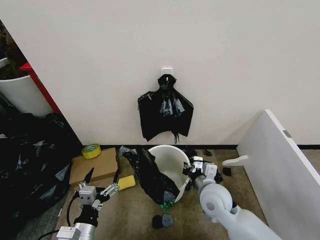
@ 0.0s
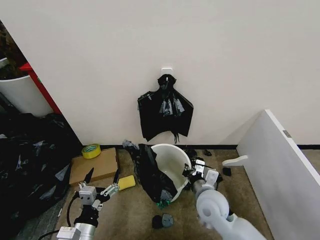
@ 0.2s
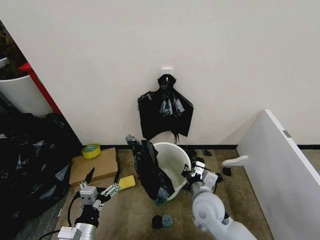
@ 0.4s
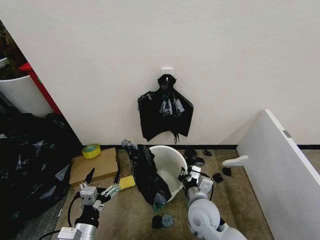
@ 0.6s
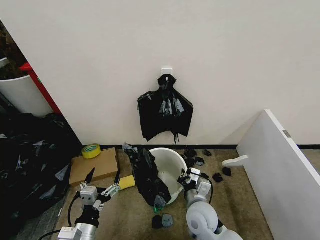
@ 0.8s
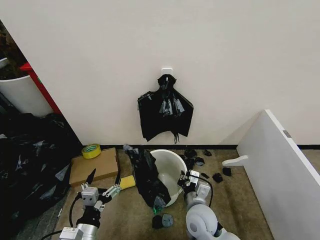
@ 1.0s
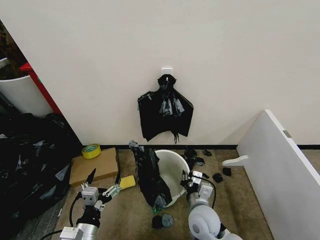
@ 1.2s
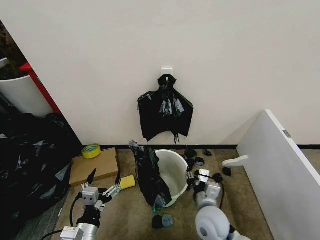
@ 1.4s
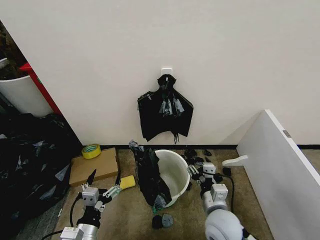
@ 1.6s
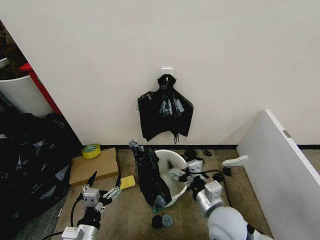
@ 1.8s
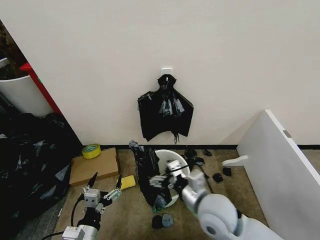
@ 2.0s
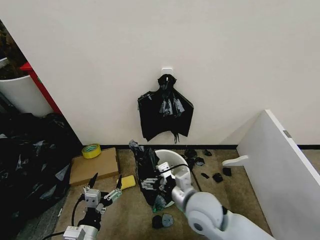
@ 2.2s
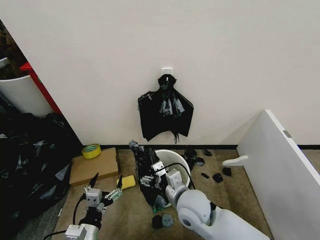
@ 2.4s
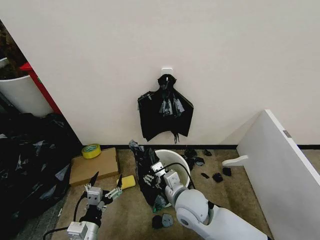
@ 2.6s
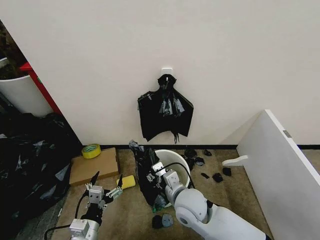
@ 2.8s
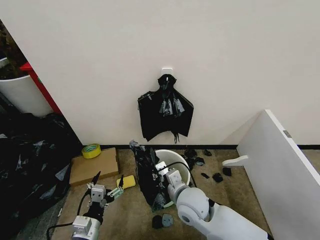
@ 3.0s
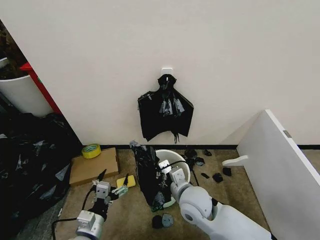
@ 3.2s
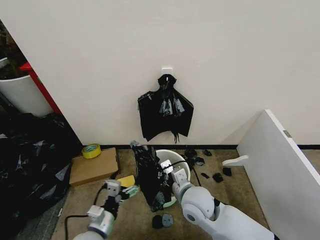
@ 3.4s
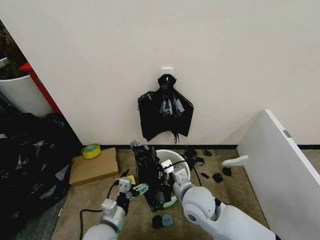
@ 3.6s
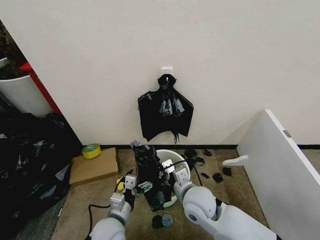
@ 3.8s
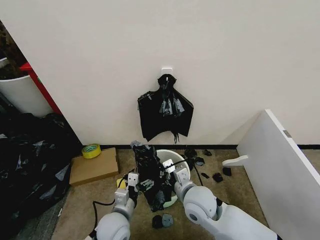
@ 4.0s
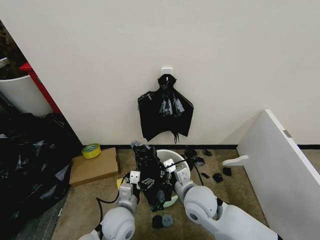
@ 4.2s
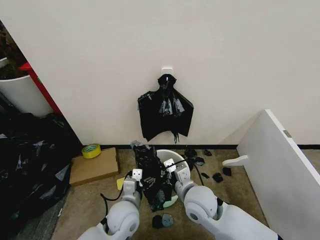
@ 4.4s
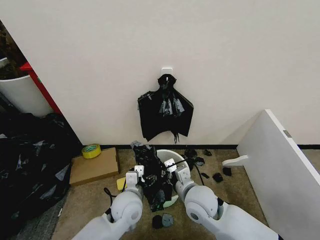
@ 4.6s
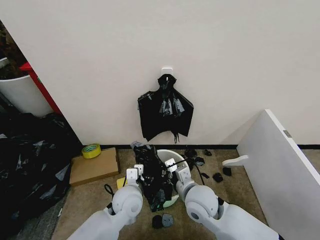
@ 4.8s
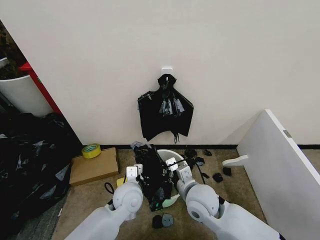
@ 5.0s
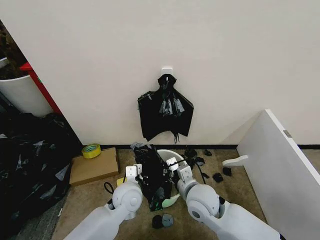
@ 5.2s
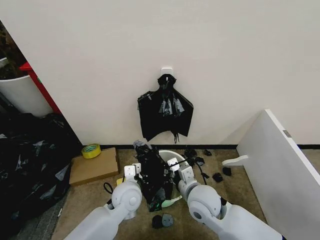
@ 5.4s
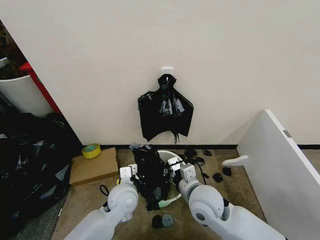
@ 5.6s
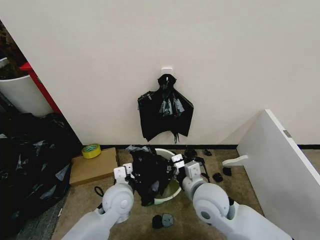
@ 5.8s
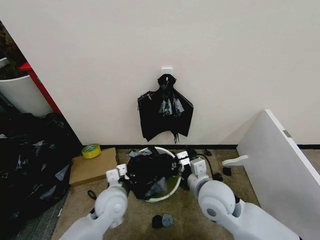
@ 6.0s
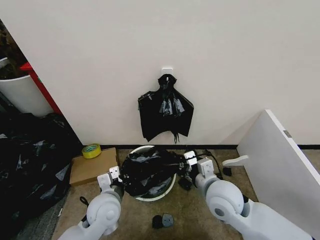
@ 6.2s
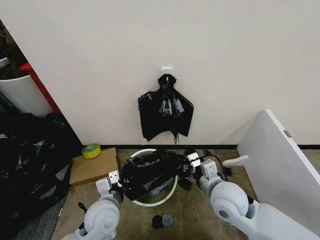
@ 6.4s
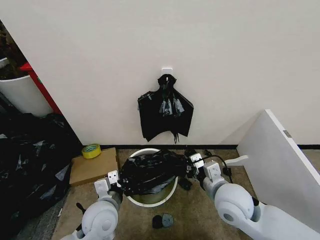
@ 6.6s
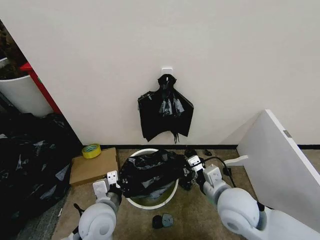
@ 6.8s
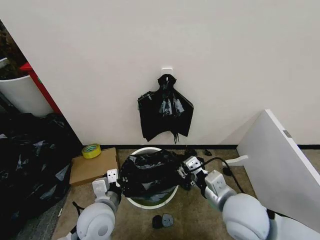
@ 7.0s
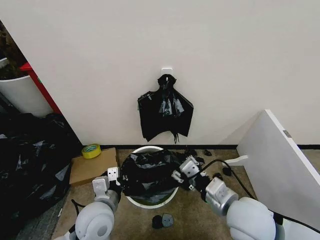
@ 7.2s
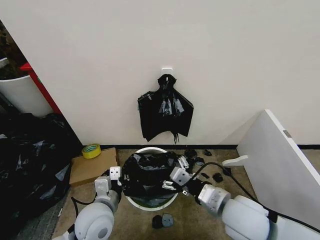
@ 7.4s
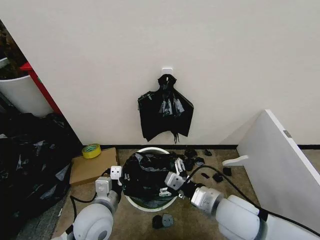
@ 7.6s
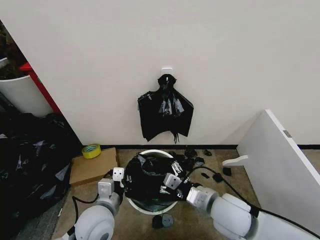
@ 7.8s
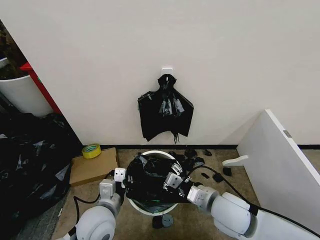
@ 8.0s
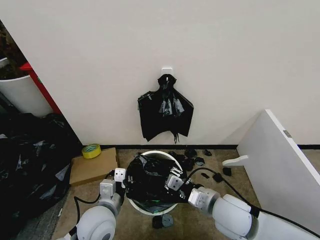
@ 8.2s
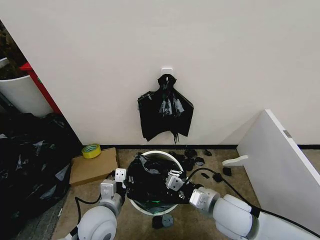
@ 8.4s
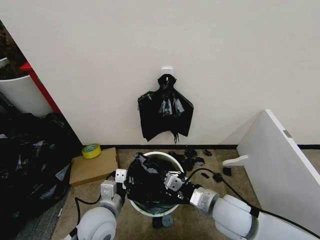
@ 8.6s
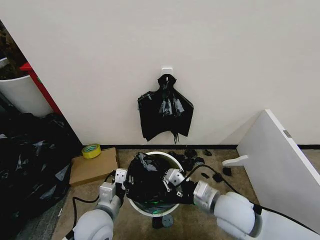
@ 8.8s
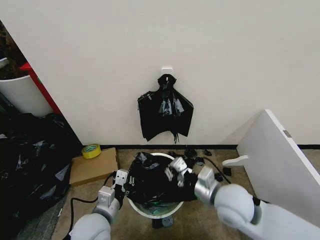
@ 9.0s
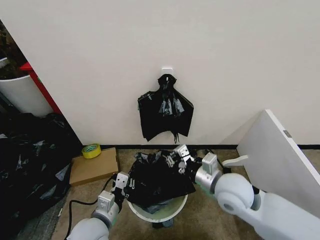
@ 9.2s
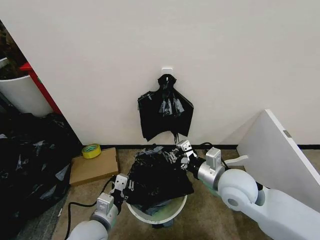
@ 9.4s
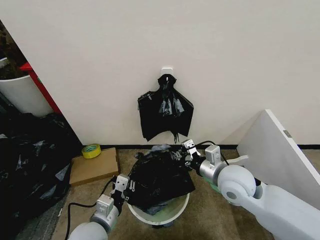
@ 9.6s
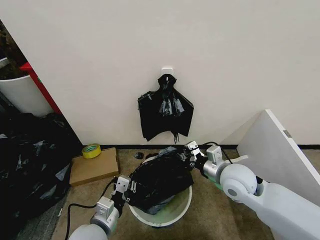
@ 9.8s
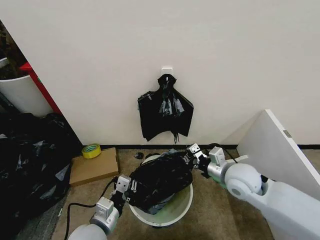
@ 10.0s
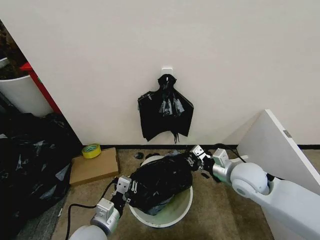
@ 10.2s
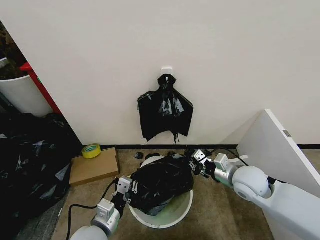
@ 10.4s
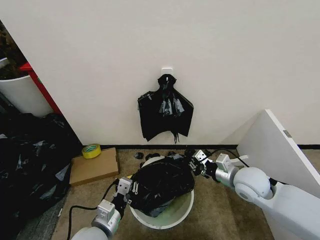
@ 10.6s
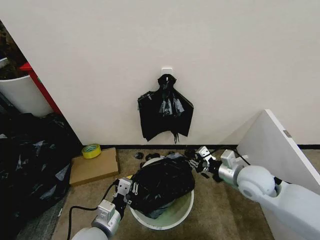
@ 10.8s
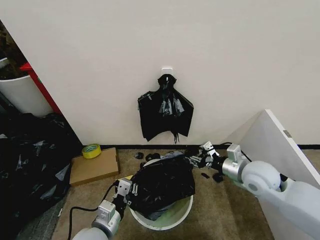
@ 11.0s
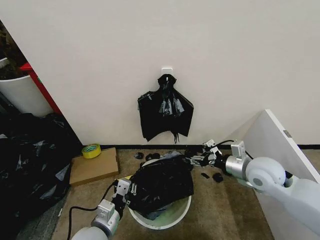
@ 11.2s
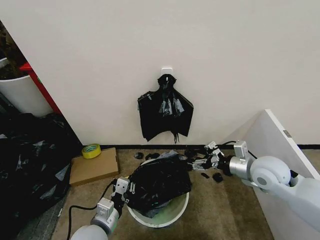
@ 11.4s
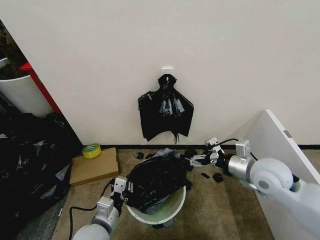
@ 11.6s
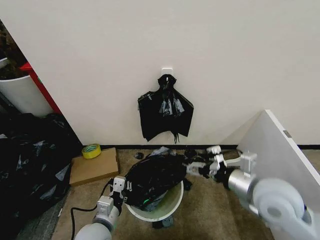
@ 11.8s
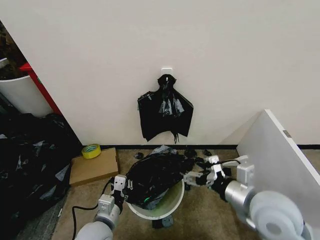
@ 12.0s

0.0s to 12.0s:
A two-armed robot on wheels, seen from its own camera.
Task of the whole recording: Place the garbage bag over the trash bin.
0.0s to 1.6s: The right gripper travels backward by some 10 cm, and opens up.
1.6s to 3.0s: The right gripper is displaced to the left and forward by roughly 10 cm, and closes.
3.0s to 4.4s: The left gripper is displaced to the right and forward by about 15 cm.
4.4s to 6.0s: The left gripper changes place by some 5 cm, and closes up. The right gripper ends up roughly 5 cm from where it was.
6.0s to 7.6s: The right gripper changes place by about 5 cm, and opens up. Meanwhile the left gripper heads backward, covering about 5 cm.
7.6s to 9.0s: The right gripper closes up.
9.0s to 10.4s: The right gripper goes roughly 10 cm to the right and forward.
10.4s to 12.0s: The right gripper shifts some 15 cm backward and upward, and opens up.

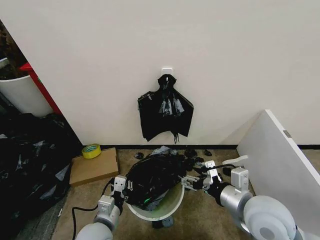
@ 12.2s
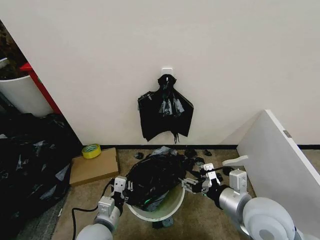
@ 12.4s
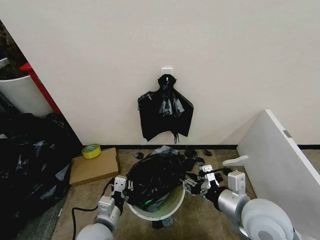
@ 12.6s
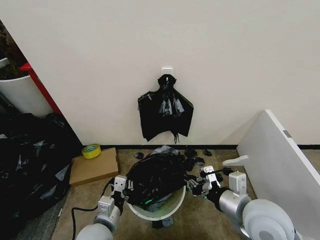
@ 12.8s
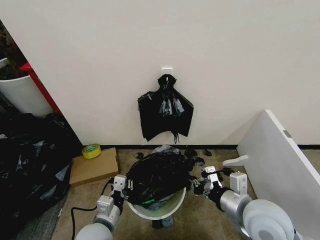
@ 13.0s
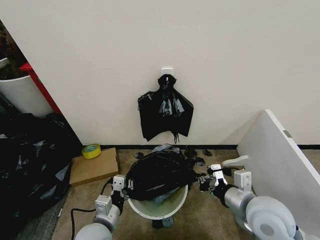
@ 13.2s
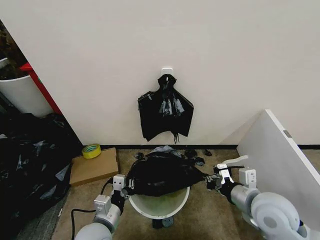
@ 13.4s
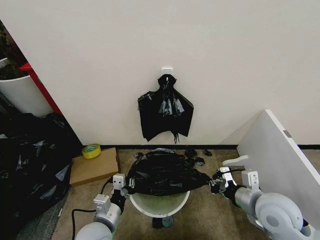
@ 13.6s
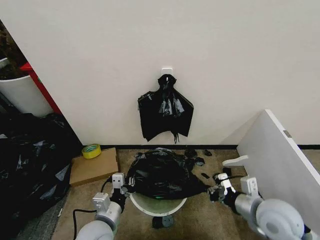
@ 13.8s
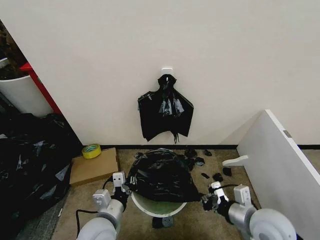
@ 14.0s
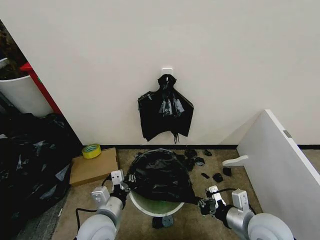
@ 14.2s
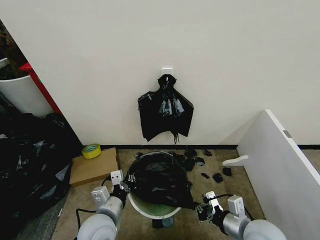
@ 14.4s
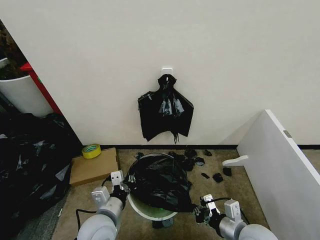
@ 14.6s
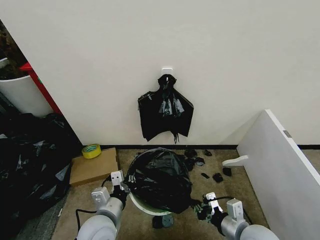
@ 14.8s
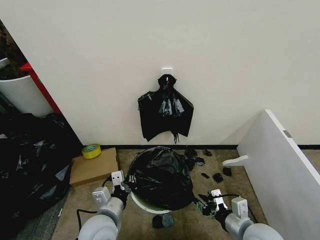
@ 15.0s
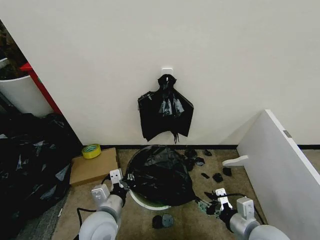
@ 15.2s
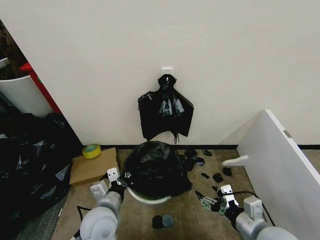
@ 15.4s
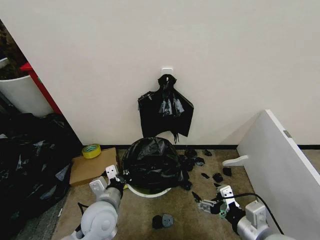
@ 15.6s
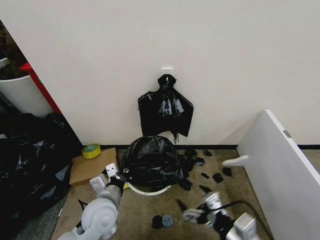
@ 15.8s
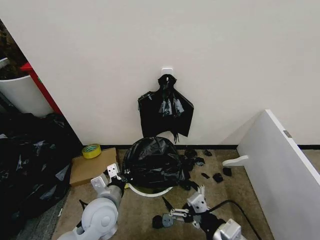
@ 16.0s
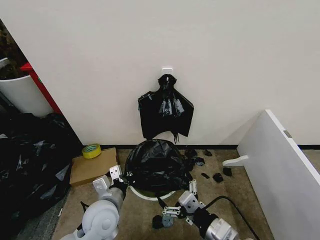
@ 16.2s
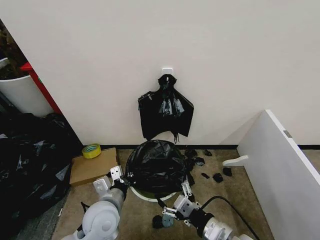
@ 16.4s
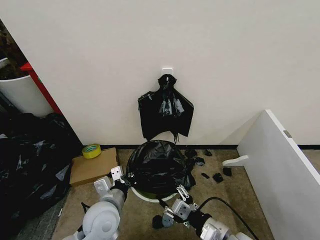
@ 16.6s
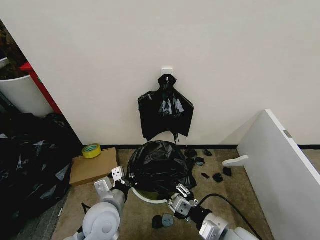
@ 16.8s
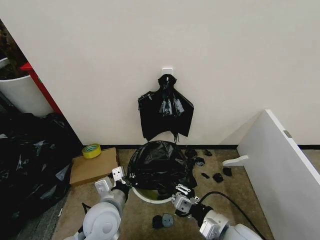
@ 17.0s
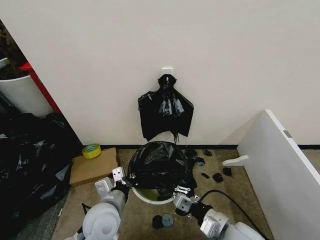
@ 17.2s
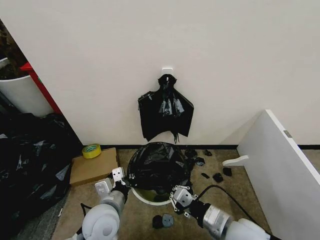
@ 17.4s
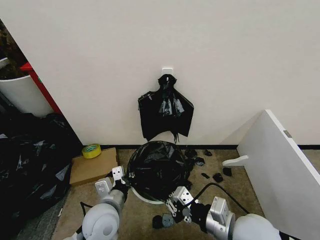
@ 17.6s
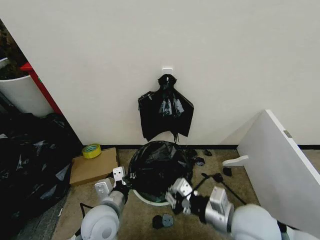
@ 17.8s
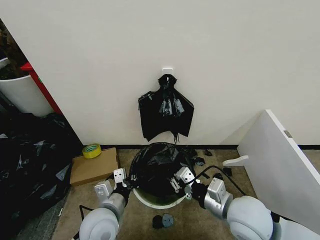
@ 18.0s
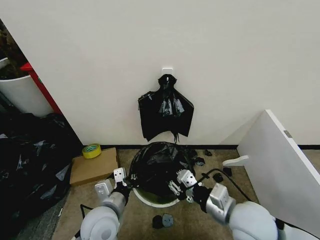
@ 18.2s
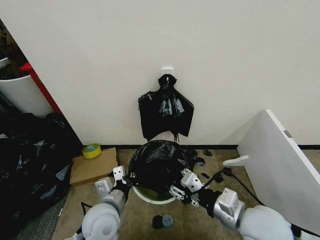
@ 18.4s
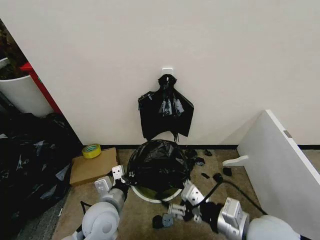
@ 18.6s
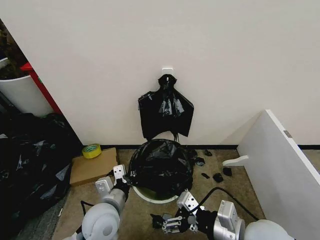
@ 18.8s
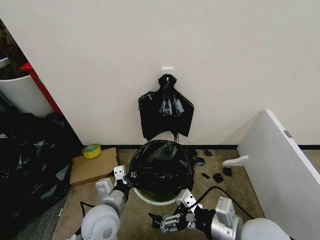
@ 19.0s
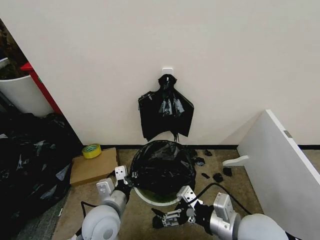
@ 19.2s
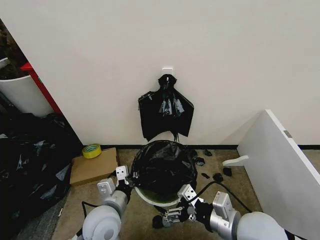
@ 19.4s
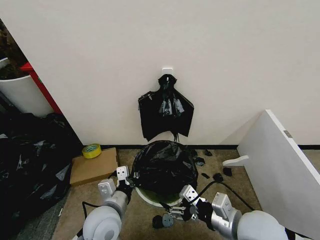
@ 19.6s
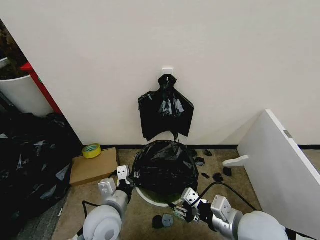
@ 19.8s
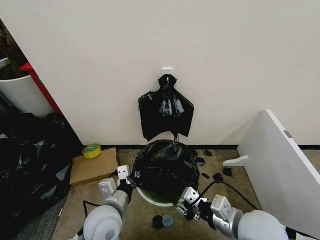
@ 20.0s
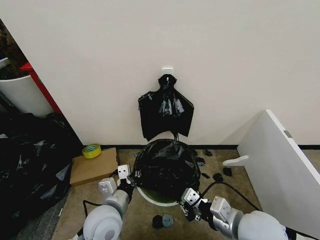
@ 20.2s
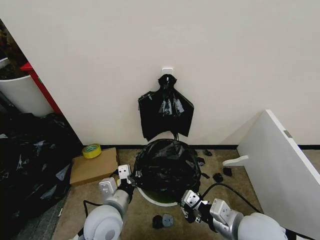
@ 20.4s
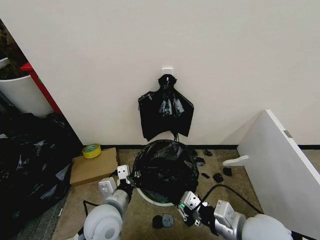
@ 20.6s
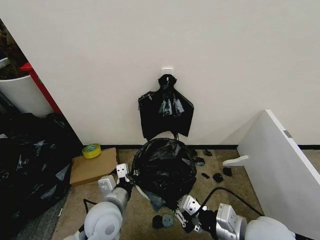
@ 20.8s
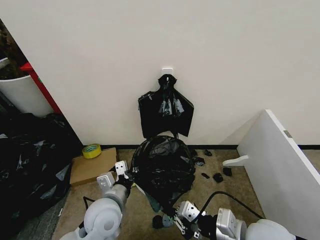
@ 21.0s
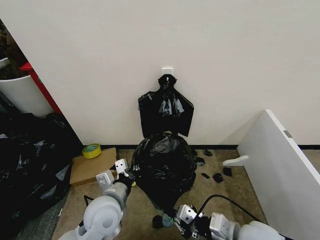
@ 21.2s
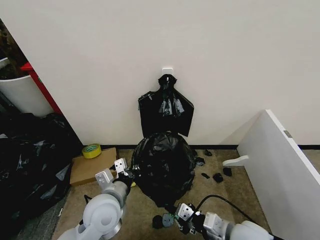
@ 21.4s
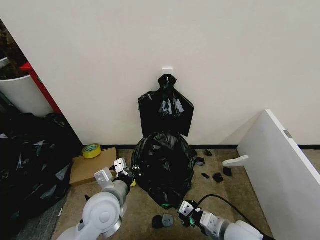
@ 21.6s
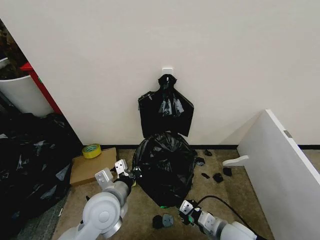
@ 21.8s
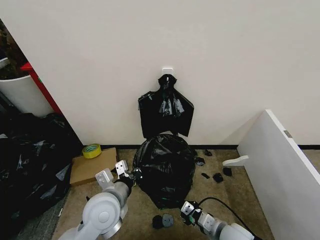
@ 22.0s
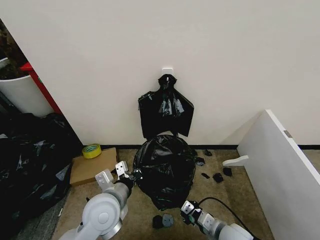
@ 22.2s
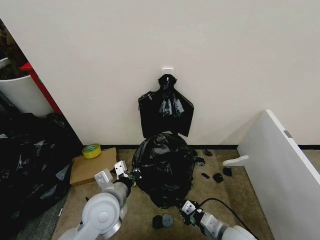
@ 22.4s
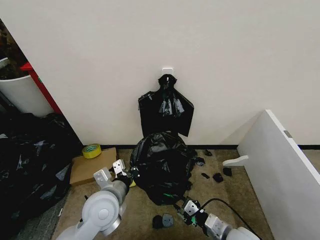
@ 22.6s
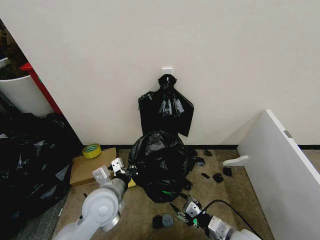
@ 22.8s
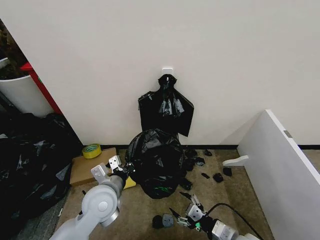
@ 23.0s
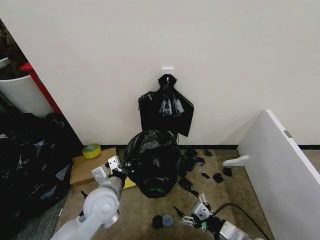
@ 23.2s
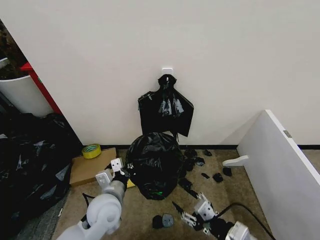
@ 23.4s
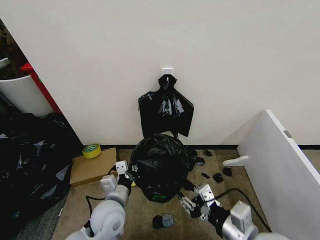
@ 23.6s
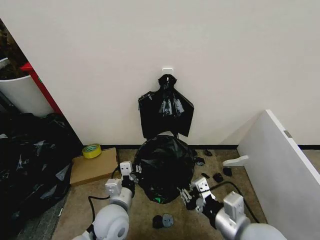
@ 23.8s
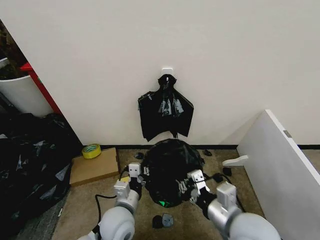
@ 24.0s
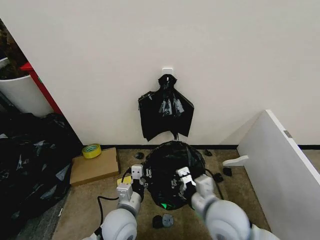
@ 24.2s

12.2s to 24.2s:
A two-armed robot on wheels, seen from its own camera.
Task of the whole recording: Place the garbage bag over the trash bin.
12.2s to 13.8s: The right gripper shifts roughly 10 cm to the right and downward, and closes its fingers.
13.8s to 15.2s: The right gripper shifts by some 5 cm, and opens.
15.2s to 16.6s: The right gripper goes some 10 cm to the left, and opens and closes again.
16.6s to 18.2s: The right gripper heads upward and forward, covering approximately 10 cm, and closes up.
18.2s to 19.8s: The right gripper opens, then closes again.
19.8s to 21.2s: The right gripper closes.
21.2s to 22.6s: The right gripper shifts about 15 cm downward.
22.6s to 24.2s: The left gripper shifts about 5 cm downward. Meanwhile the right gripper heads upward and to the left, covering about 15 cm, and opens and closes again.
